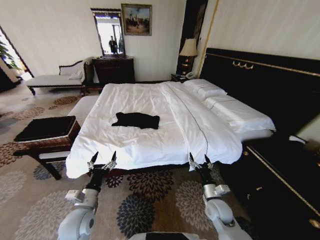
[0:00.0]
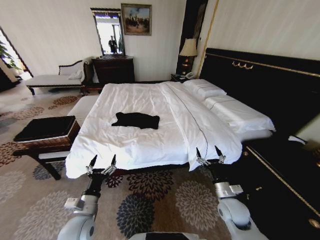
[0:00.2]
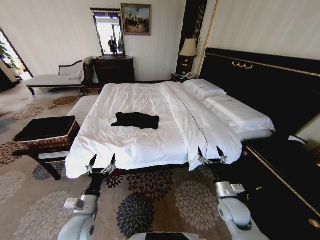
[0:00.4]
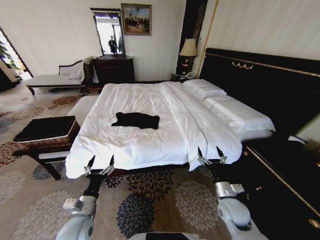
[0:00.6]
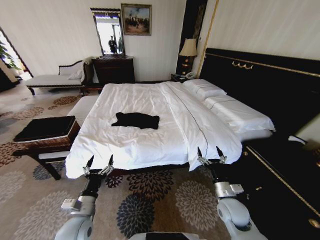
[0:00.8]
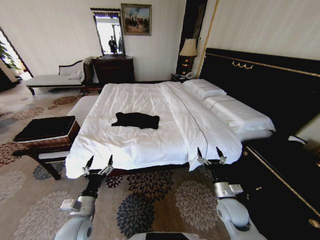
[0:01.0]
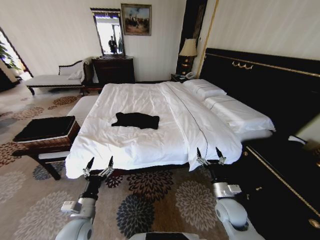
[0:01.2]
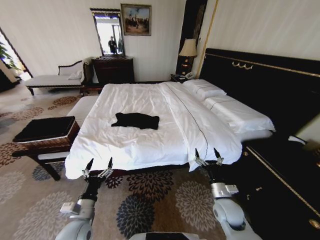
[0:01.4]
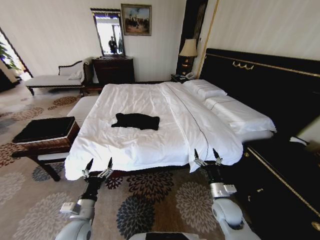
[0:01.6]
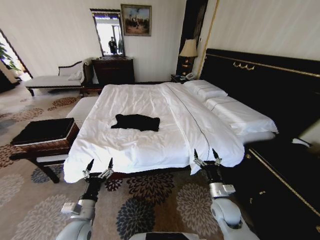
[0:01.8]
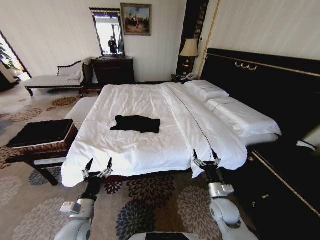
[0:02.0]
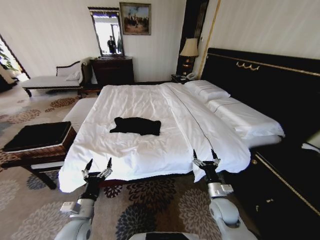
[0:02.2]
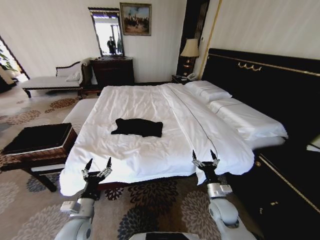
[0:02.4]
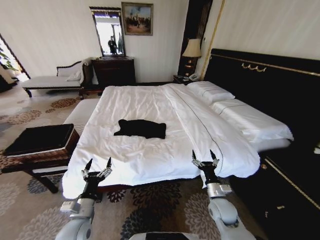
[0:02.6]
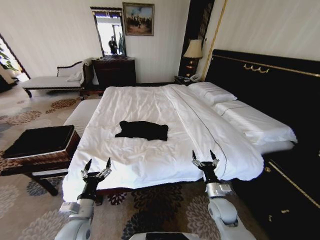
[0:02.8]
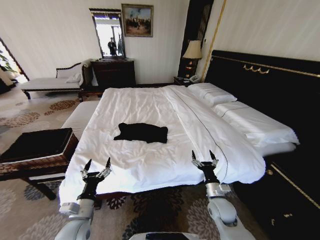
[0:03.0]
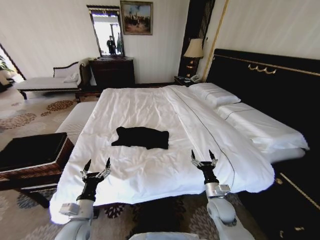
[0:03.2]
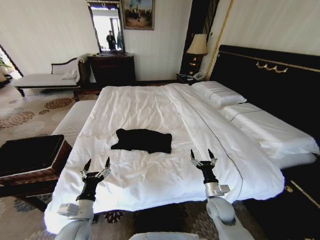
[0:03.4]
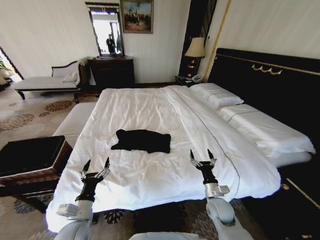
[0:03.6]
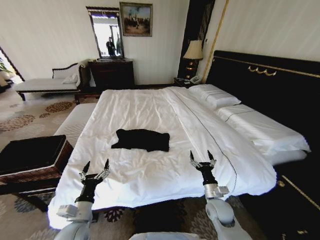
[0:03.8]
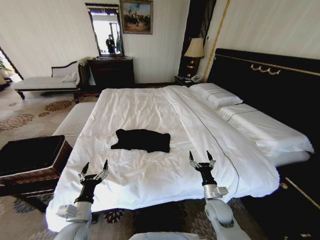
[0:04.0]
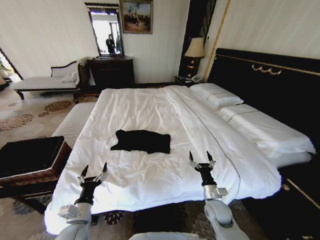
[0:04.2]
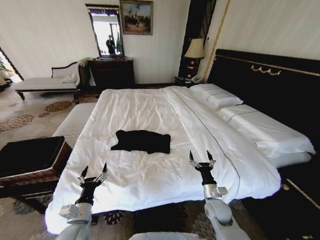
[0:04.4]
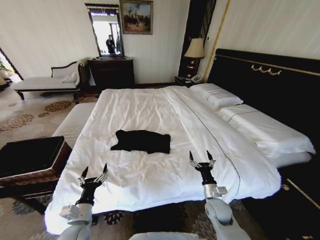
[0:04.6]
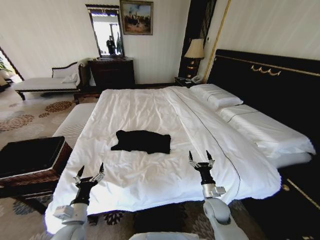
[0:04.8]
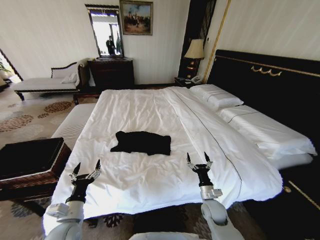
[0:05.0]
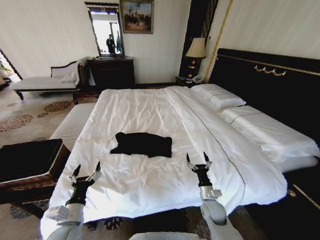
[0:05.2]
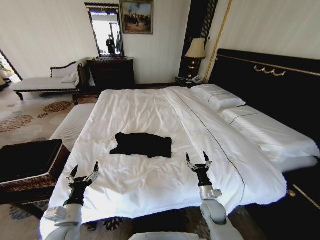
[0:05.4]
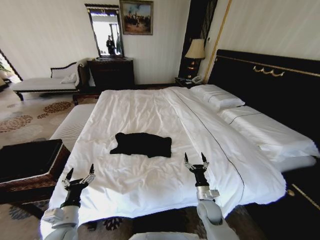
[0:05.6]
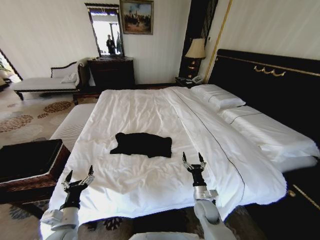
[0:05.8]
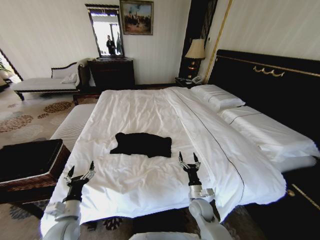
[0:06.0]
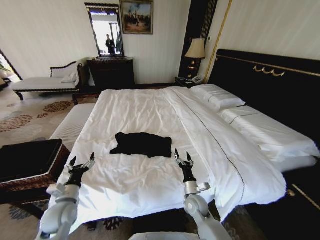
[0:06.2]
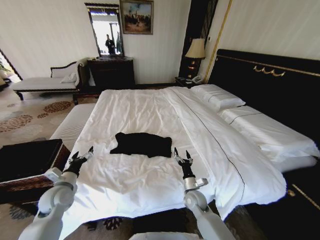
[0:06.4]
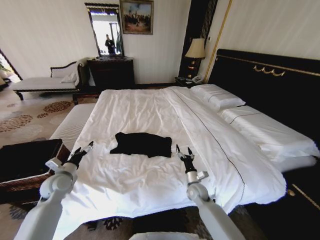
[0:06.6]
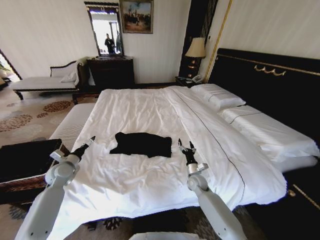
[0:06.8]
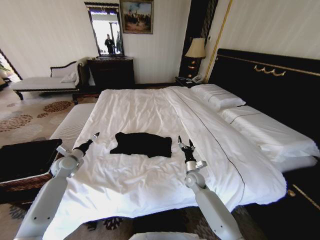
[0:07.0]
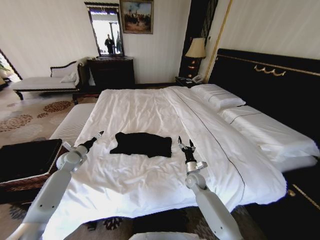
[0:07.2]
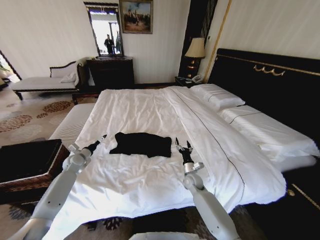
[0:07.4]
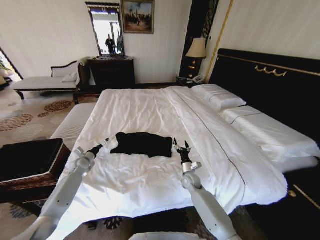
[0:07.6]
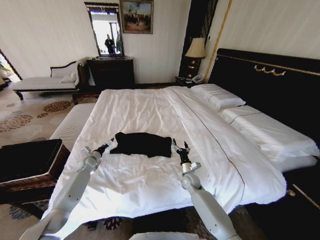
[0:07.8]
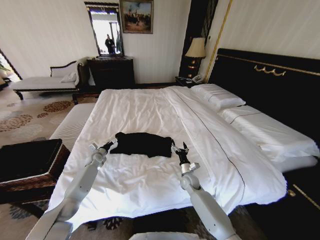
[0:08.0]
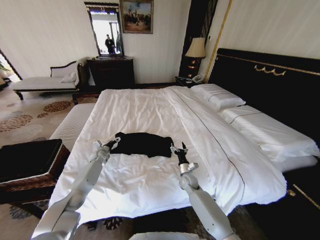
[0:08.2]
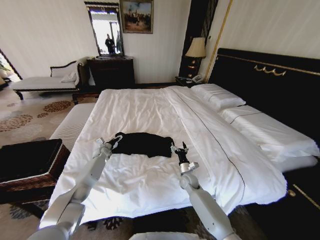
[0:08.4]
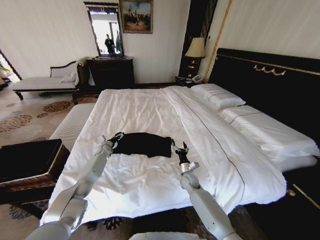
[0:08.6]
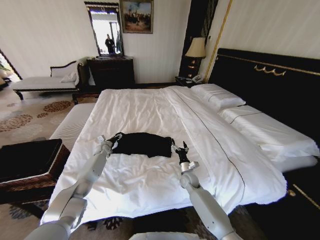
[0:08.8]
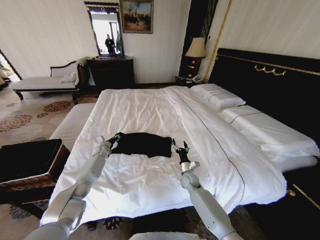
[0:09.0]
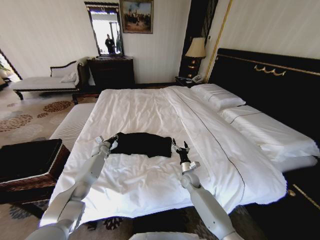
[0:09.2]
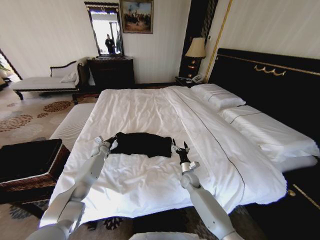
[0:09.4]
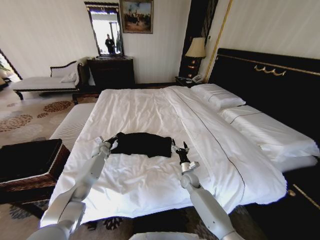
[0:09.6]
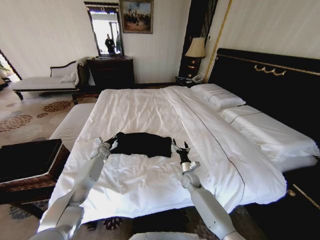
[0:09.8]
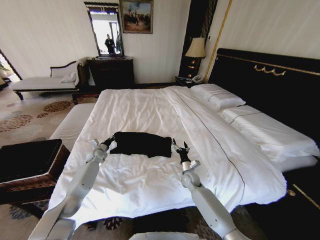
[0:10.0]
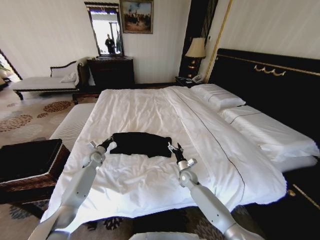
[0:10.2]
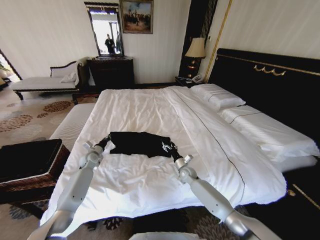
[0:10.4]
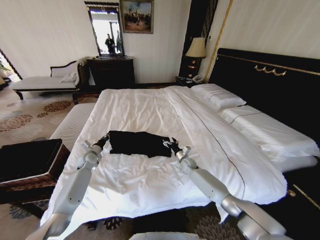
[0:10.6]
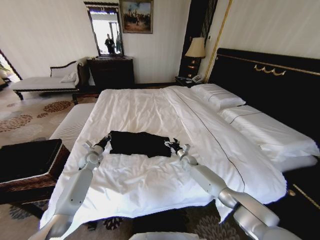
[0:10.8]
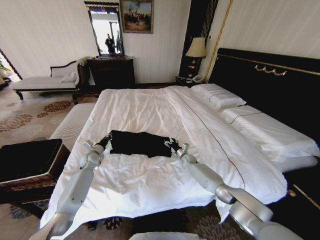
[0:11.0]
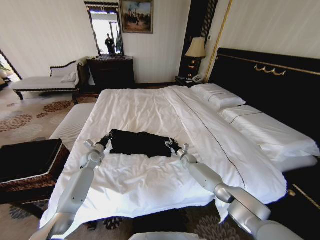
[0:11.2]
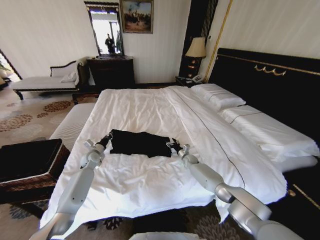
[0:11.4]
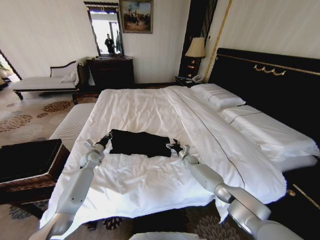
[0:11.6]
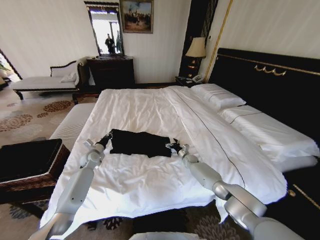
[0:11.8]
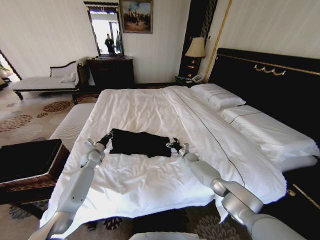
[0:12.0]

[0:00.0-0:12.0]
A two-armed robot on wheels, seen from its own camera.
Task of the whole recording: Fold the clothes on the bed and place them into the basket.
0:04.4 to 0:06.0: The right gripper is displaced to the left by some 5 cm.
0:06.0 to 0:07.6: The left gripper is displaced forward by roughly 30 cm. Meanwhile the right gripper goes approximately 15 cm forward.
0:07.6 to 0:09.0: The left gripper heads forward and to the right, covering approximately 15 cm, and closes up.
0:09.0 to 0:10.4: The left gripper goes approximately 10 cm backward, and closes up.
0:10.4 to 0:12.0: The right gripper is displaced forward and to the right by roughly 15 cm.

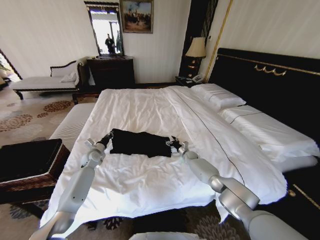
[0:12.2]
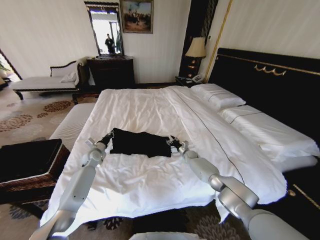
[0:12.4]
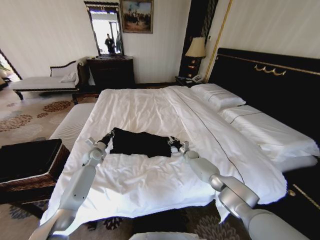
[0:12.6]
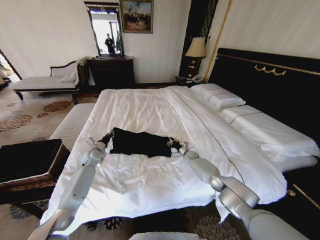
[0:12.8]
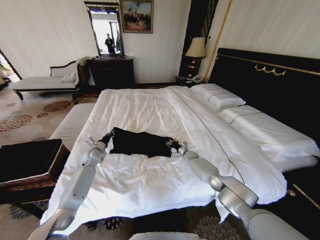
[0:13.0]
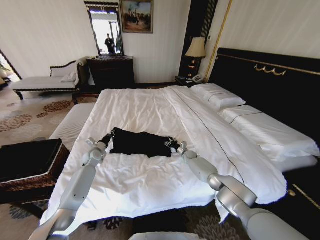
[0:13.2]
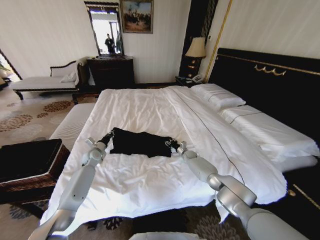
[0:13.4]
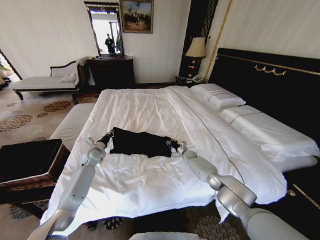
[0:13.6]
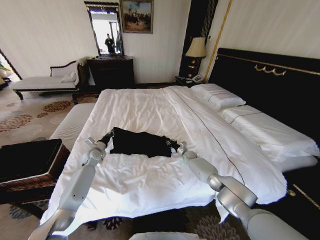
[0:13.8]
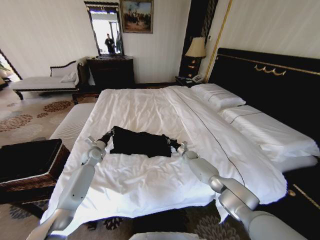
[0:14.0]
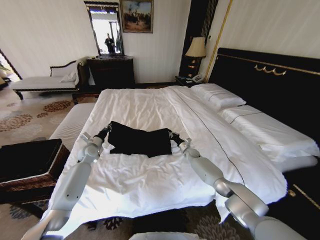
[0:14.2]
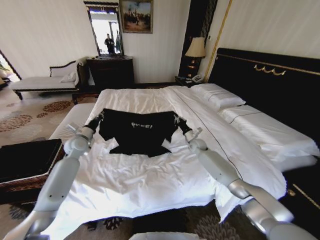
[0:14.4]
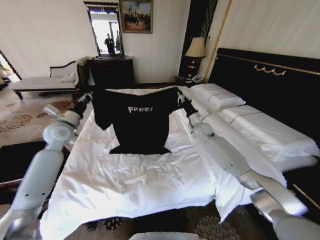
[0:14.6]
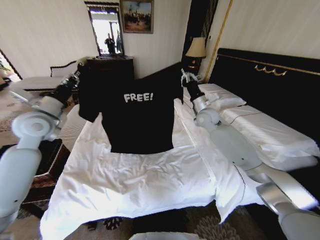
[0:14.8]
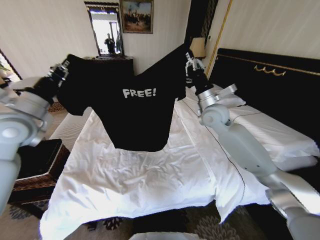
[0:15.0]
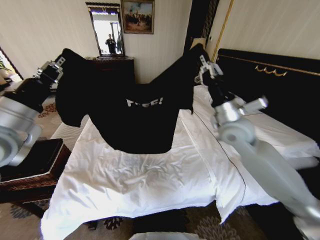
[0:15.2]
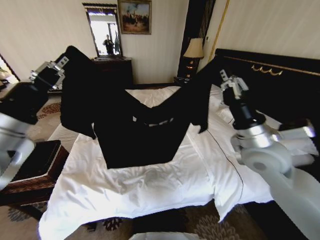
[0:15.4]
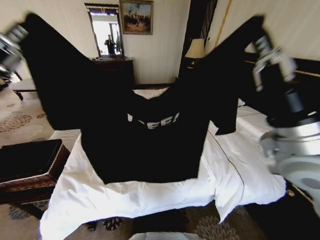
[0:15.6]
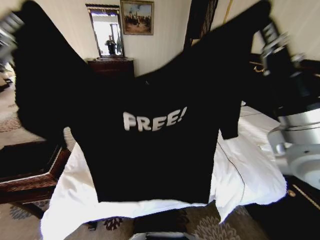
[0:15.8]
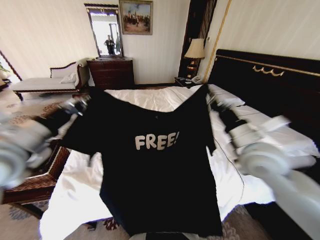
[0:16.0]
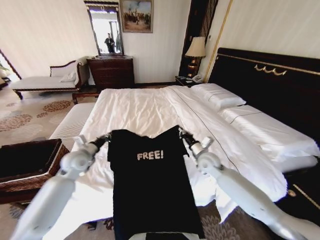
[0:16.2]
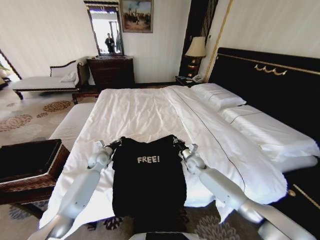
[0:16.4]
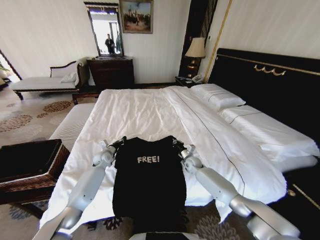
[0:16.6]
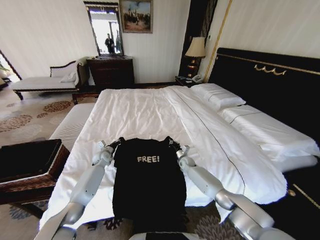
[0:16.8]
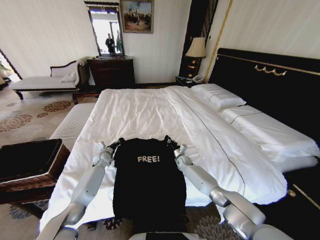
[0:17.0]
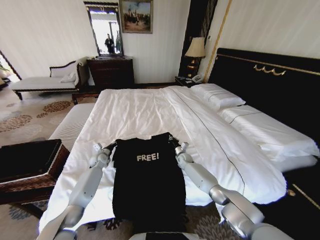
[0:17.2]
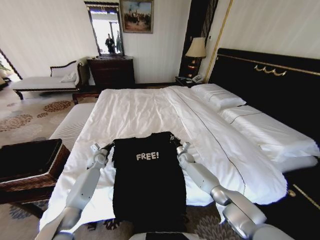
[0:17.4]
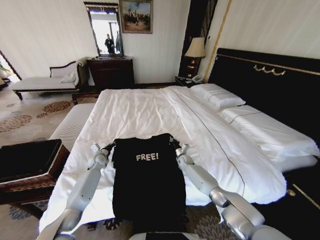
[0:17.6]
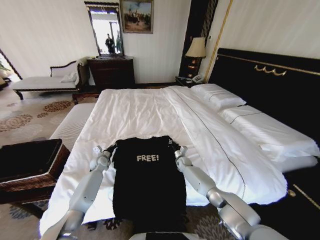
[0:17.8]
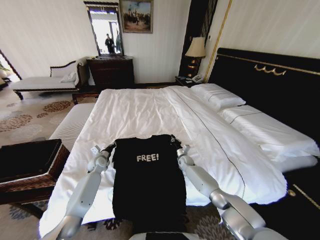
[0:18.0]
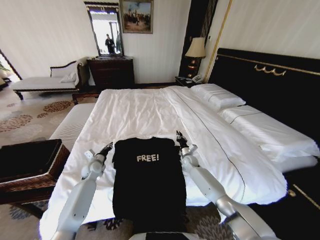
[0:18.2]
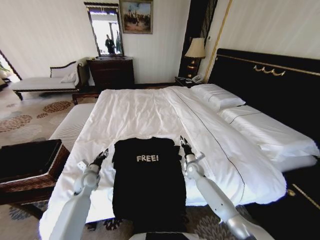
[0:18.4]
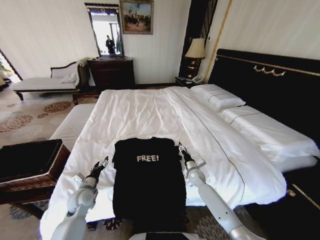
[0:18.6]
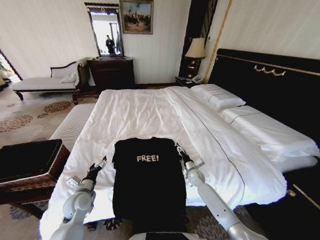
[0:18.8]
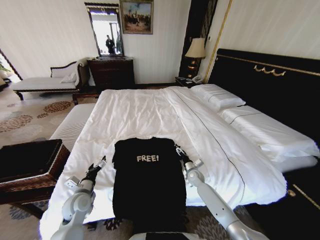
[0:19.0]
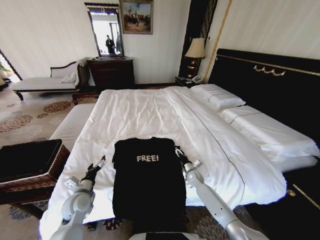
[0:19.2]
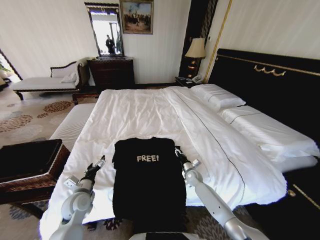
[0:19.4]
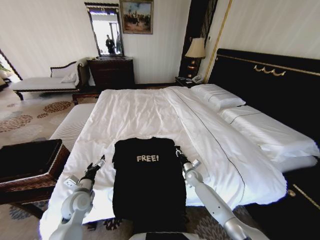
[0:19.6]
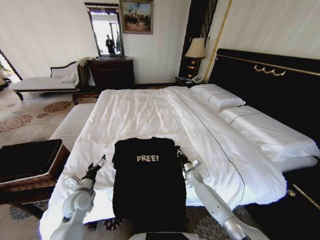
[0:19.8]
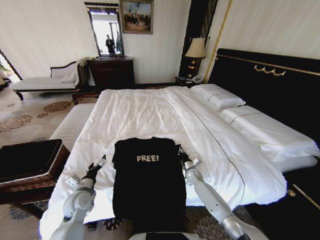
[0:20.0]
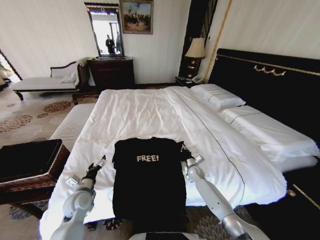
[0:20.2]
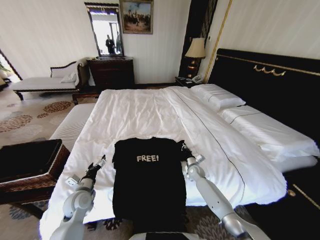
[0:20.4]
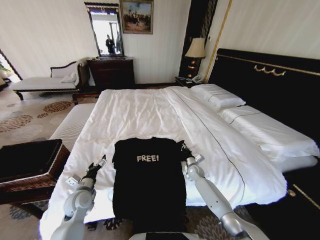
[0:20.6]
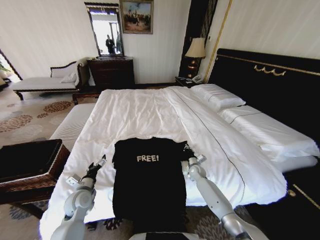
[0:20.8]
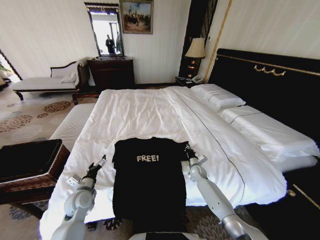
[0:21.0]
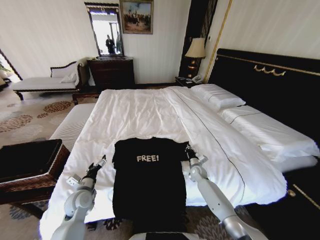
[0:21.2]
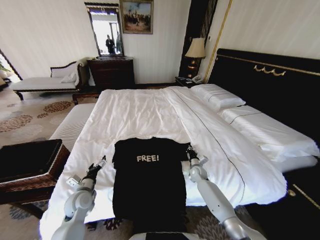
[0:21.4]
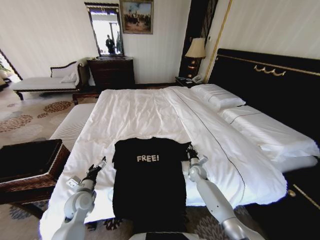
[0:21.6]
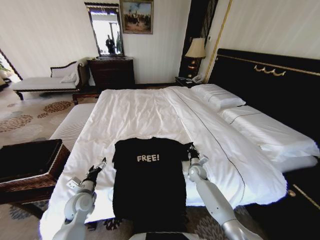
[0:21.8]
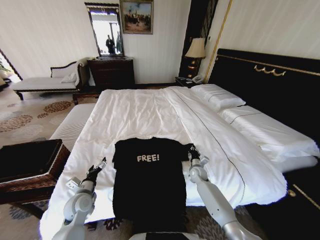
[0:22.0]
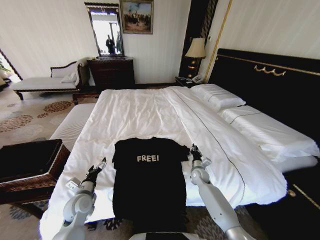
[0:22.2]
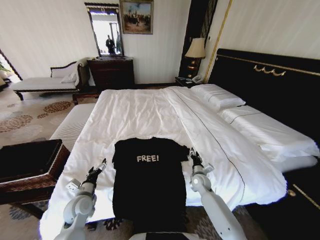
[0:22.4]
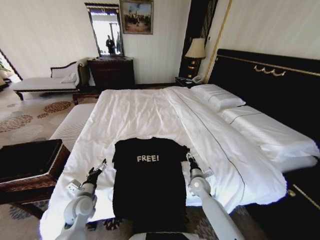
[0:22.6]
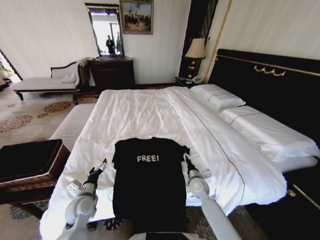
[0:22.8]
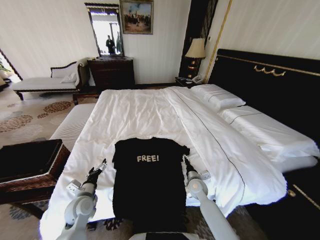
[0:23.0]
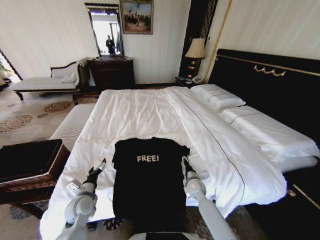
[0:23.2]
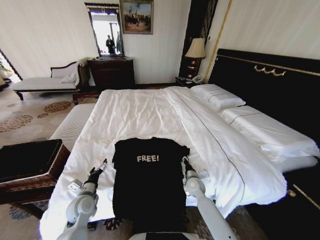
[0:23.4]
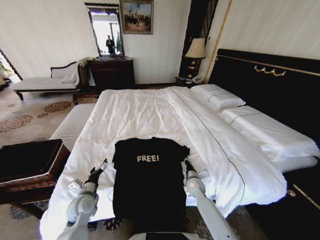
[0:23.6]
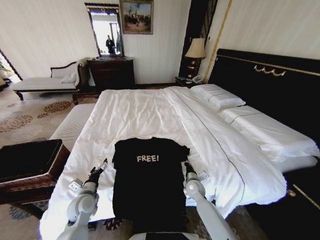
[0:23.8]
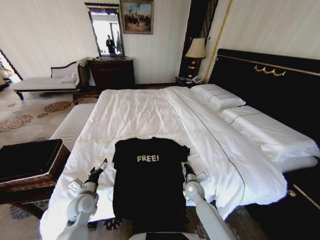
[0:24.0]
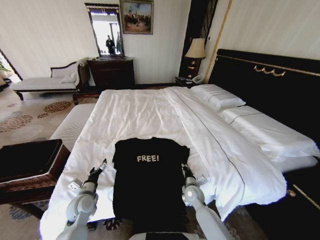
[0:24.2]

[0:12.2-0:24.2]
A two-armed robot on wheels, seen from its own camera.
Task of the whole recording: Fold the clothes on the bed and place them into the basket.
0:12.2 to 0:13.8: The right gripper closes.
0:13.8 to 0:15.2: Both grippers move upward and backward, roughly 40 cm.
0:15.2 to 0:16.6: The right gripper moves downward, about 35 cm, while the left gripper goes about 40 cm downward and forward.
0:16.6 to 0:18.2: The left gripper goes approximately 5 cm backward.
0:18.2 to 0:19.8: The left gripper goes approximately 15 cm backward, and opens its fingers; the right gripper moves backward and downward, approximately 10 cm, and opens, then closes once more.
0:19.8 to 0:21.2: There are only small adjustments of the grippers.
0:21.2 to 0:22.6: The right gripper is displaced backward and upward by some 10 cm, and opens its fingers.
0:22.6 to 0:24.2: The right gripper moves roughly 5 cm, and closes up.
